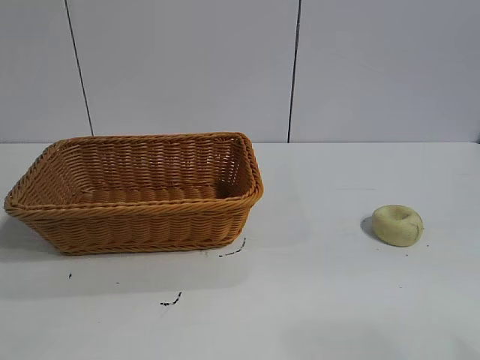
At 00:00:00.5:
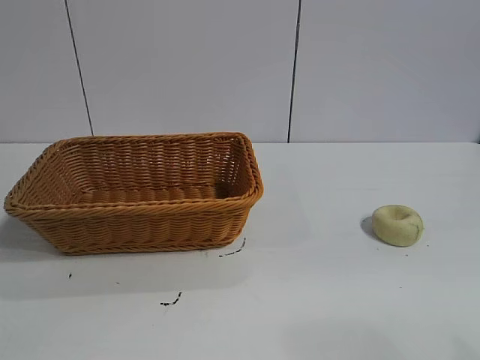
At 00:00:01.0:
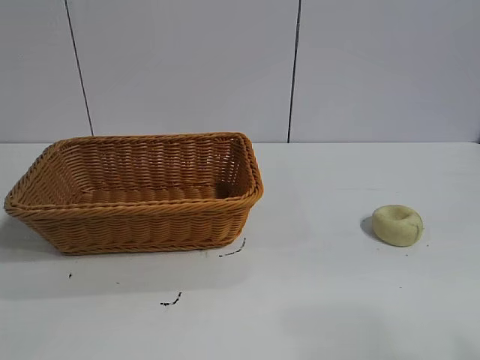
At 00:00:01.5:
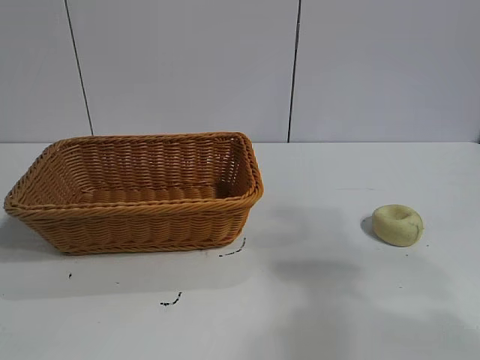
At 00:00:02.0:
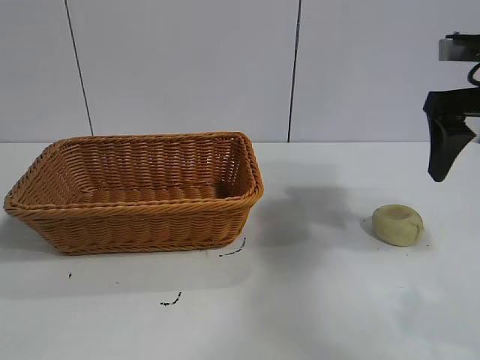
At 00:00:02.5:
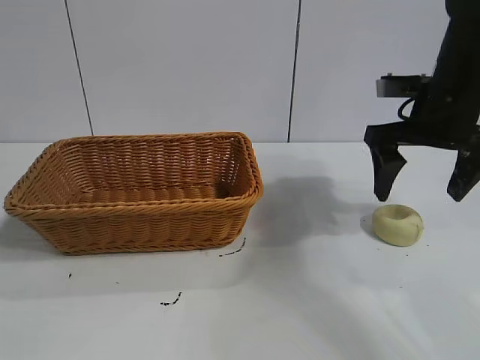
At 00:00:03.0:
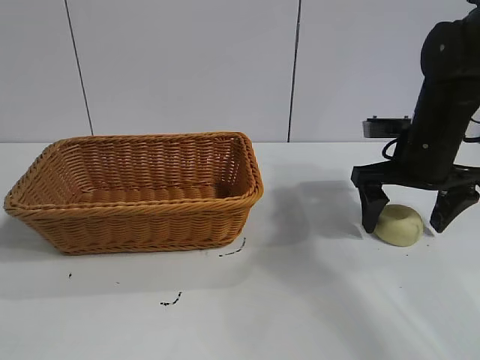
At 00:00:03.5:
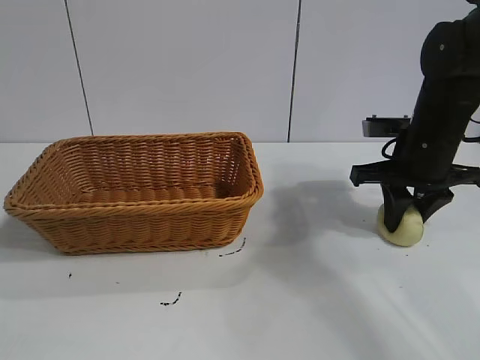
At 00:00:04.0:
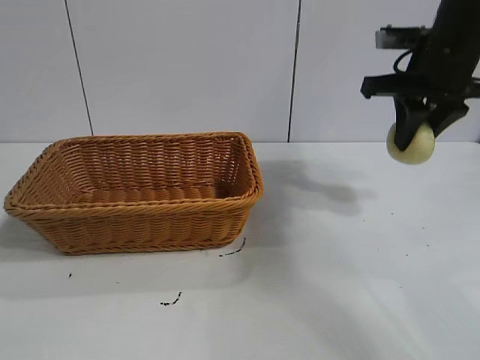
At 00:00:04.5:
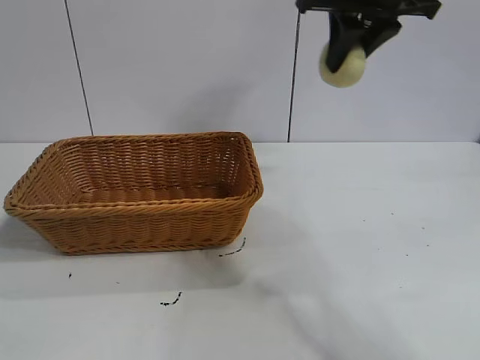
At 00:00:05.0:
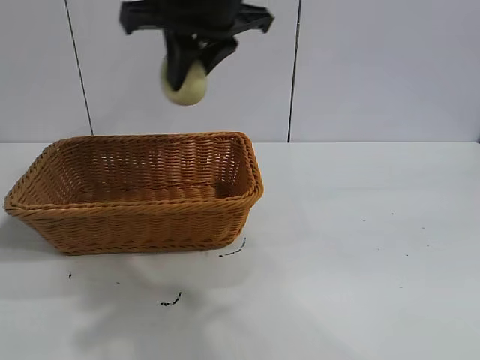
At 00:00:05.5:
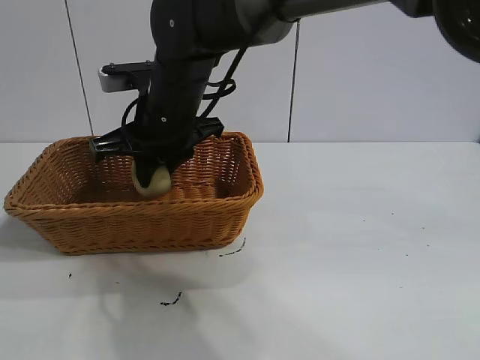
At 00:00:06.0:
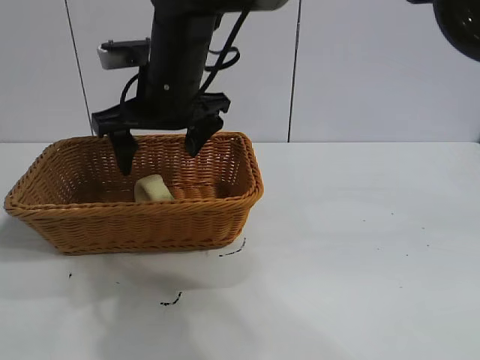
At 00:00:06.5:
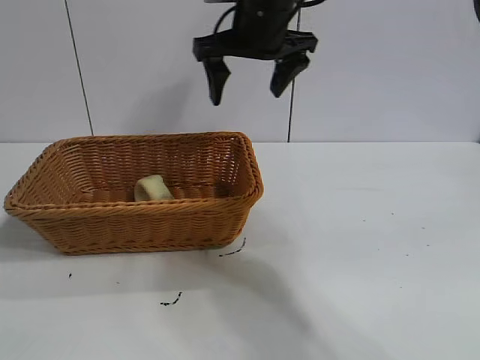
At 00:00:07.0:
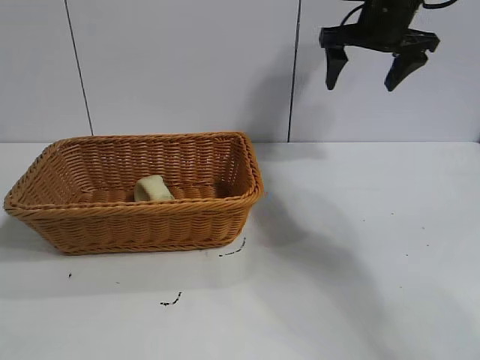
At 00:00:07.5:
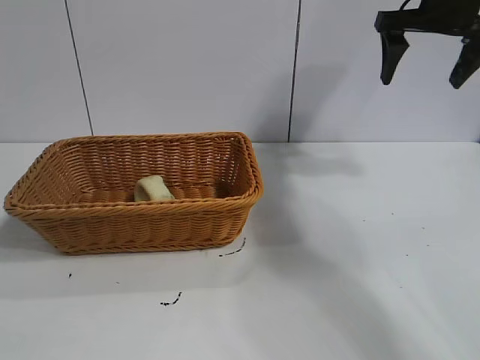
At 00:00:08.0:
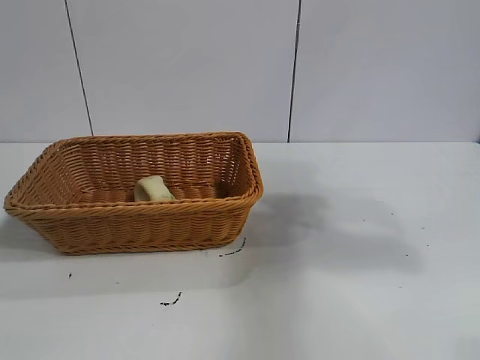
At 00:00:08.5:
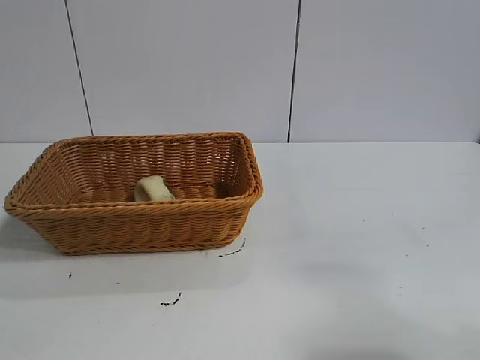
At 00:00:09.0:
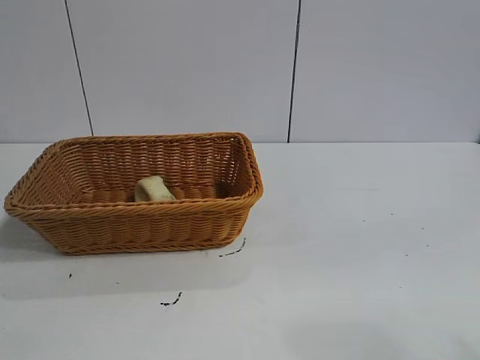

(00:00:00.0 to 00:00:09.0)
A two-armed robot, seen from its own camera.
Task of the whole recording: pick up the egg yolk pastry and put it into the basket.
Step, 00:00:01.0 - 00:00:03.5: Grasp egg yolk pastry with right gripper.
Step, 00:00:04.0 - 00:00:05.5: Place the egg yolk pastry in the basket with right gripper.

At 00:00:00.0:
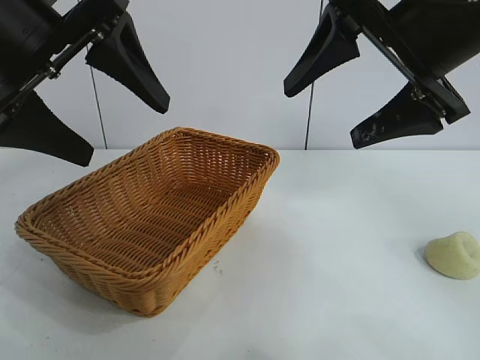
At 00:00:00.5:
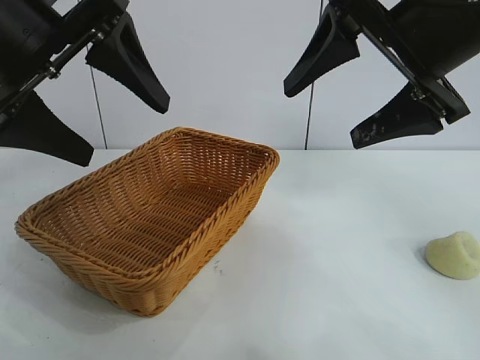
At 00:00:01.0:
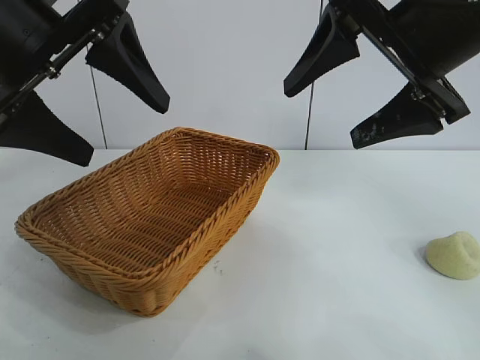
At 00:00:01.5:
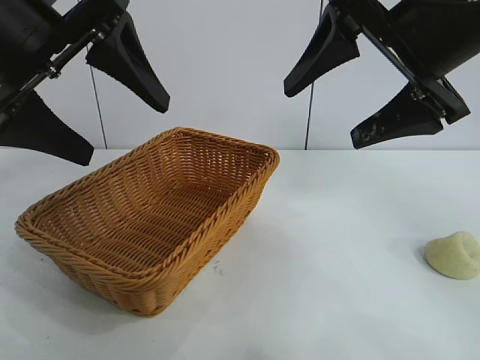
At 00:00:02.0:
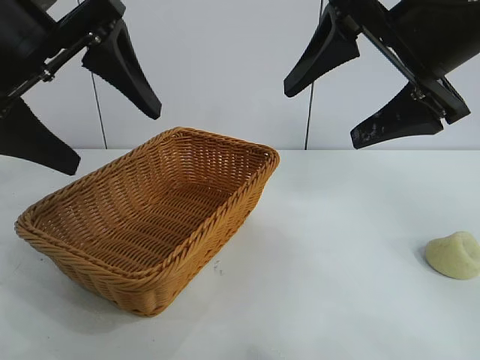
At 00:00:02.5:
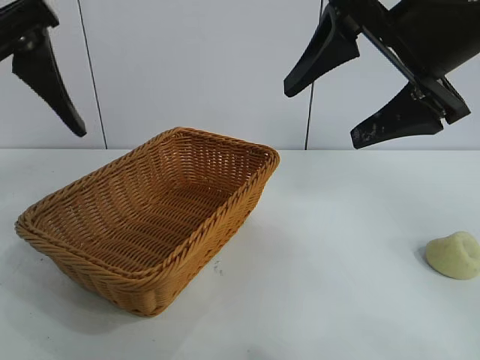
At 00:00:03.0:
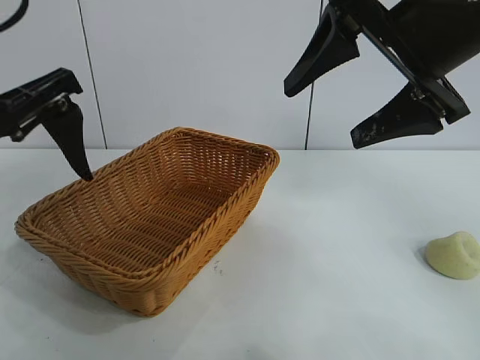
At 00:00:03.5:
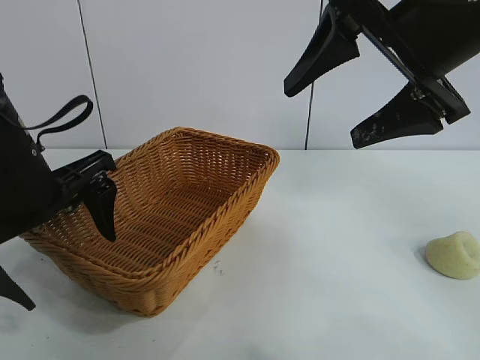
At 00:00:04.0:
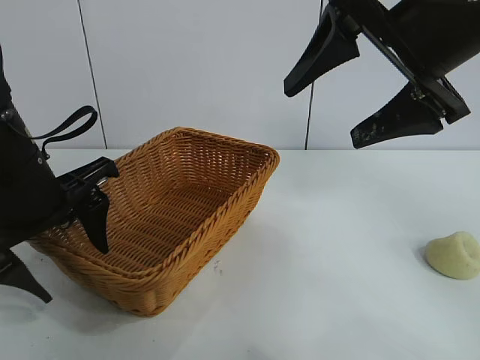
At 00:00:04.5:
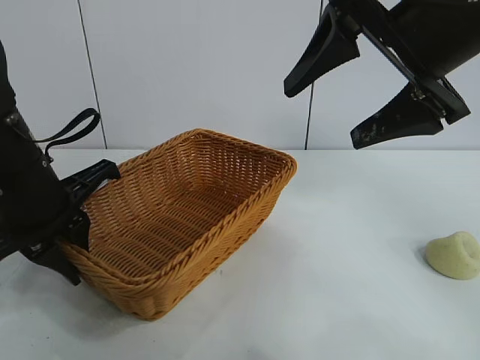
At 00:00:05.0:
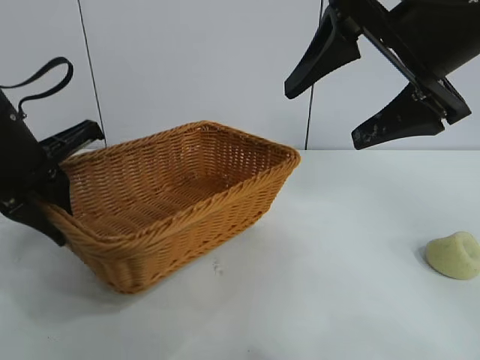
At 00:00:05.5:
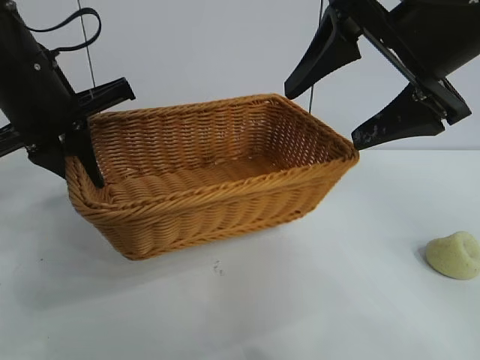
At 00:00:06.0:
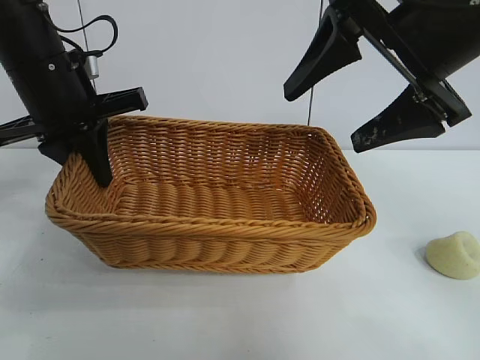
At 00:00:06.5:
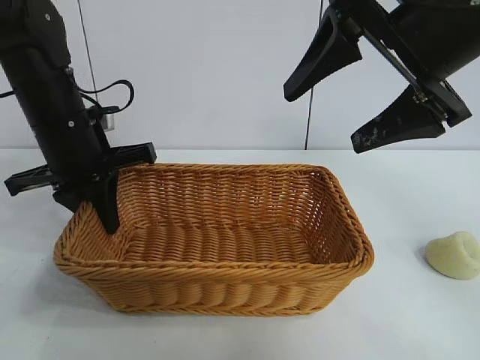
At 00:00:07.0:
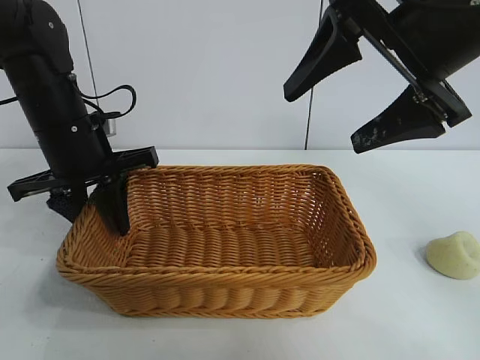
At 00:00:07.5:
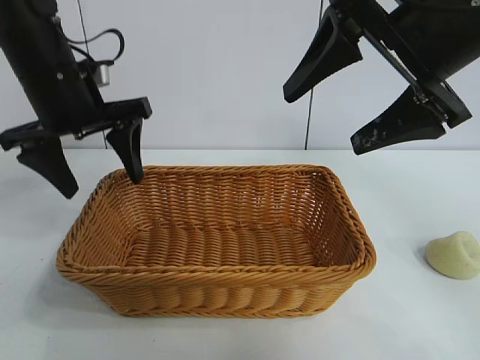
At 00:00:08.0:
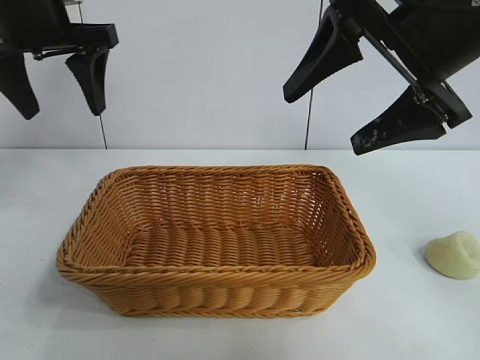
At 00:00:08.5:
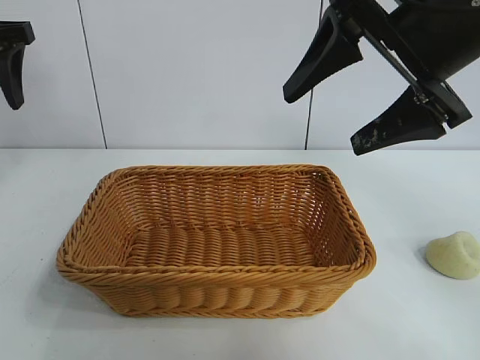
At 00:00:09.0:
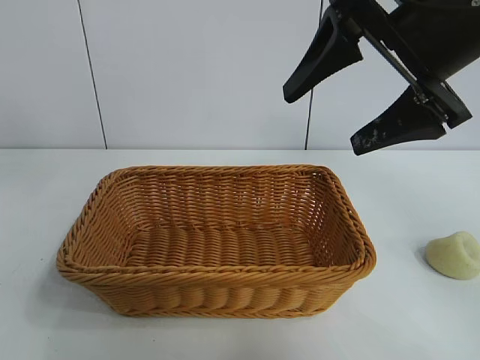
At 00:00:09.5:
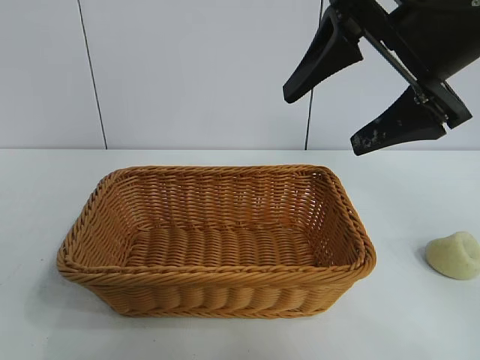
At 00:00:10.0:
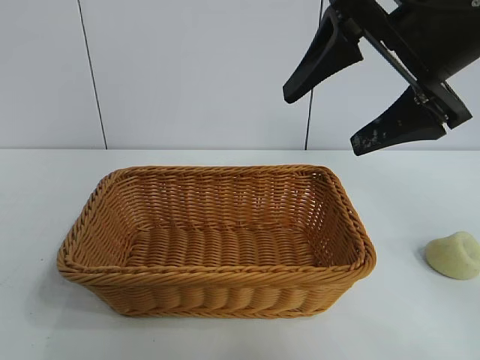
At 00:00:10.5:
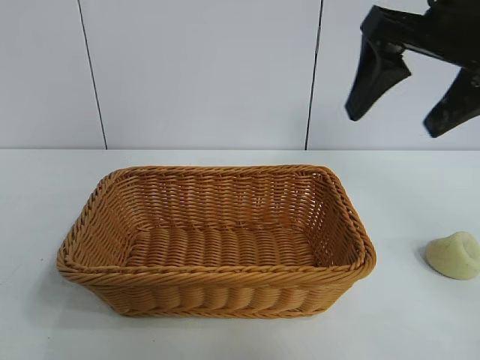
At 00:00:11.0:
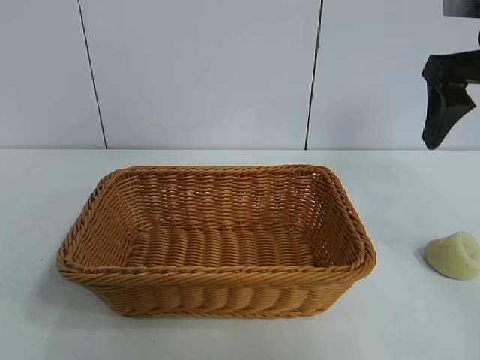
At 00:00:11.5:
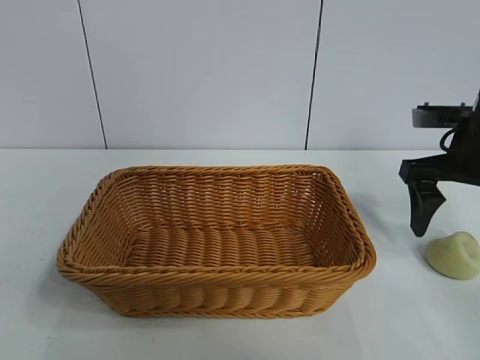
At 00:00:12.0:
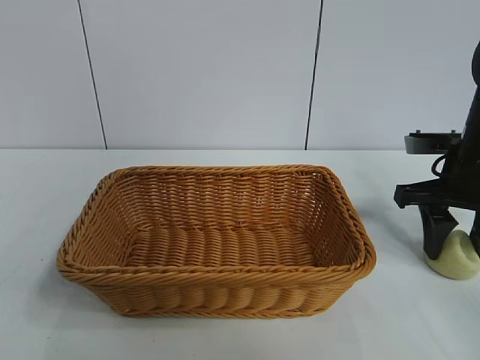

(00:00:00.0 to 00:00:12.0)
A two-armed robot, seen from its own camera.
Task of the whole recording: pick up the egg yolk pastry and put it into the basket.
Step, 00:00:02.0 - 00:00:04.0: Grasp the basket with left gripper.
Step, 00:00:04.5 - 00:00:07.0: Place the basket in the center of view with left gripper.

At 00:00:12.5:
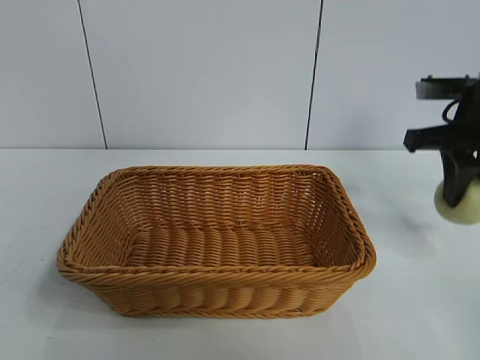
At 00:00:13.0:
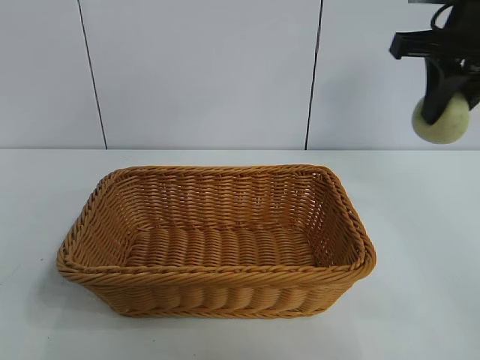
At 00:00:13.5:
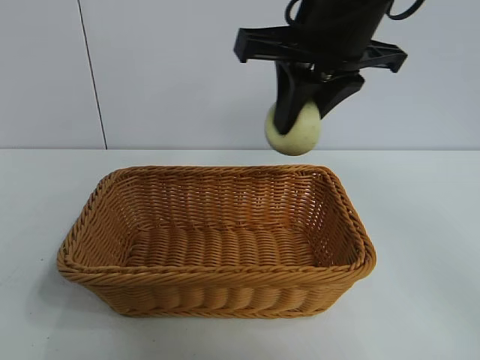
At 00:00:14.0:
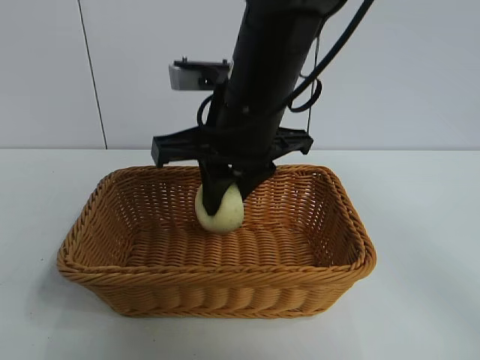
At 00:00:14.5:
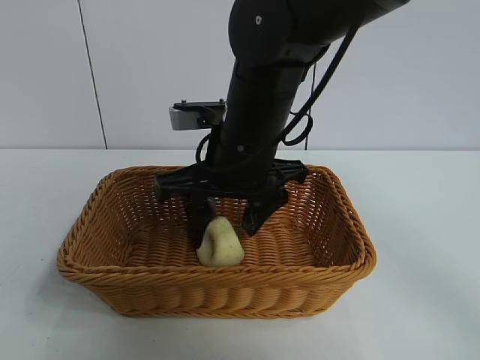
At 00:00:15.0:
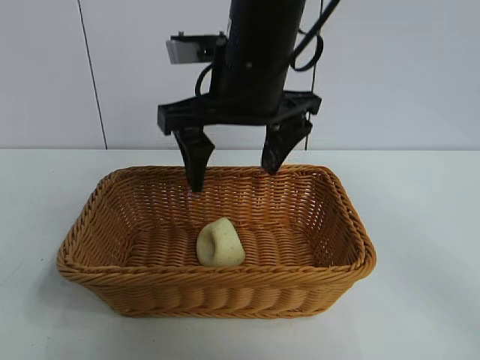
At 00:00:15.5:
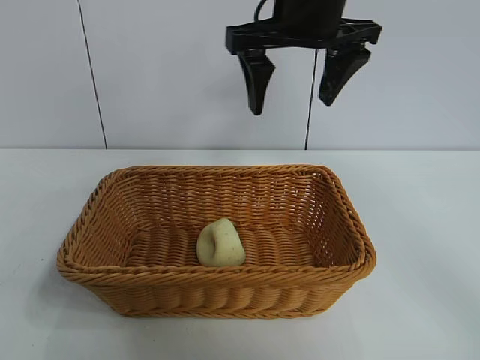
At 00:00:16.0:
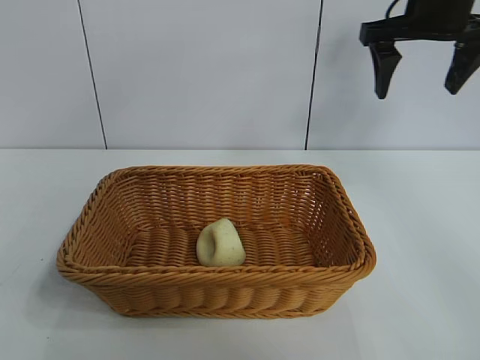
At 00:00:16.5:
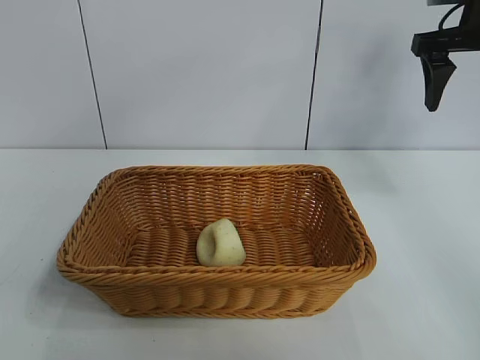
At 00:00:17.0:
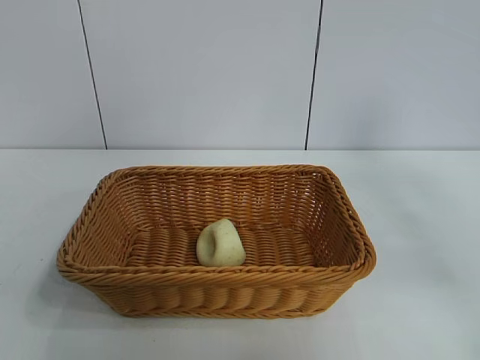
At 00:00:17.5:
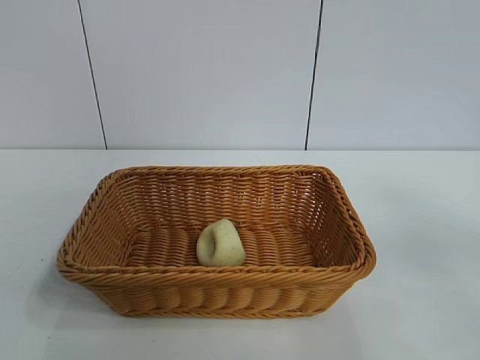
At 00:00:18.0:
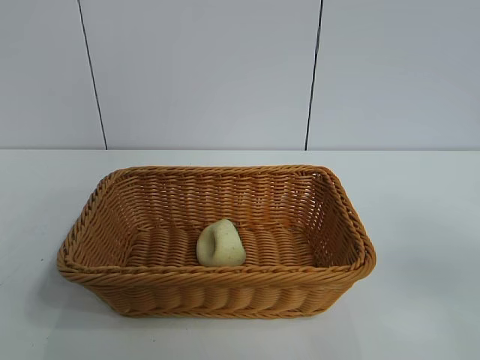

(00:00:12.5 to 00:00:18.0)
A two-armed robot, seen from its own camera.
Task of the whole recording: pick up the egg yolk pastry and put it into the basket.
Step, 00:00:12.5 - 00:00:14.5: Place the egg yolk pastry in the basket with right gripper.
